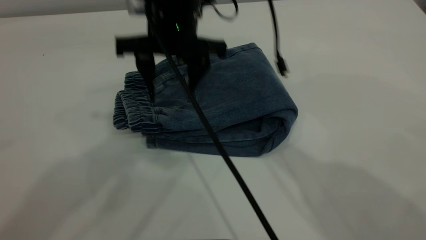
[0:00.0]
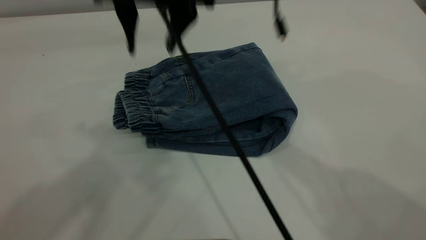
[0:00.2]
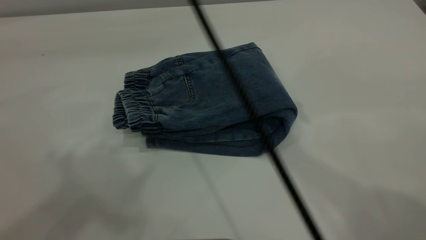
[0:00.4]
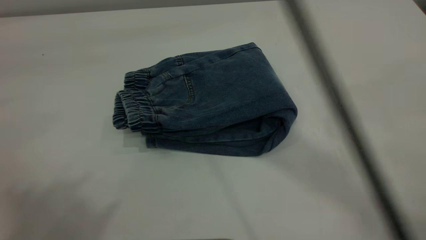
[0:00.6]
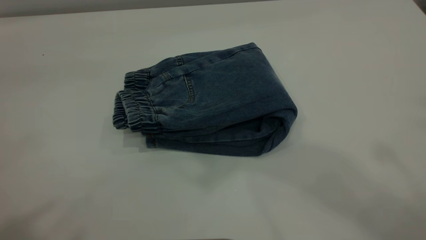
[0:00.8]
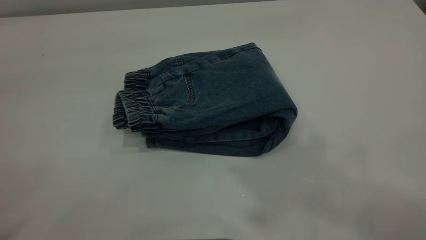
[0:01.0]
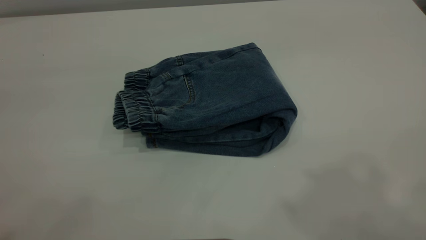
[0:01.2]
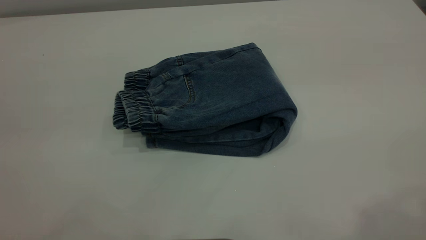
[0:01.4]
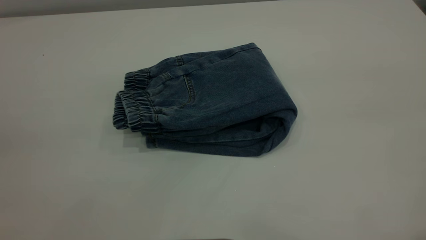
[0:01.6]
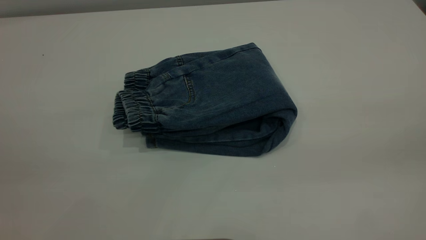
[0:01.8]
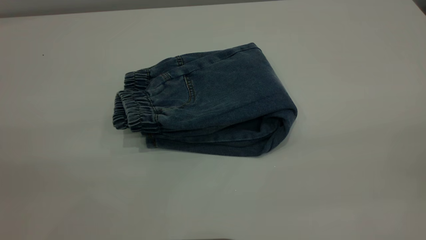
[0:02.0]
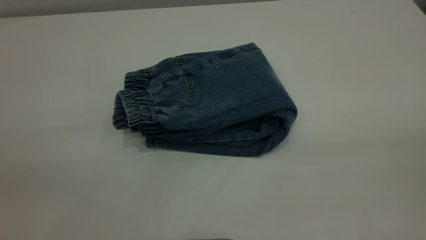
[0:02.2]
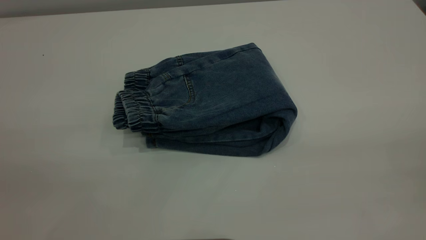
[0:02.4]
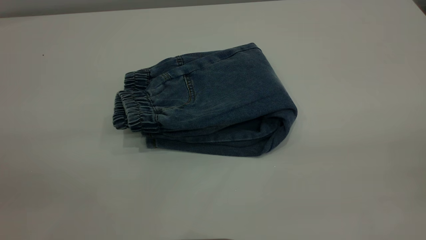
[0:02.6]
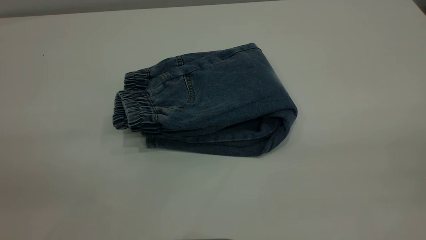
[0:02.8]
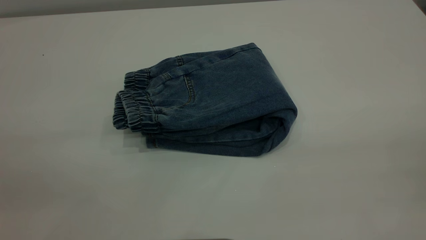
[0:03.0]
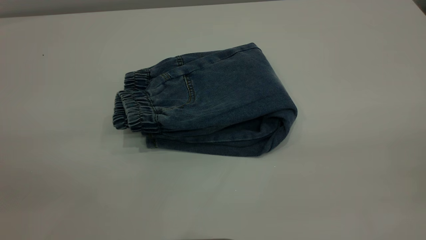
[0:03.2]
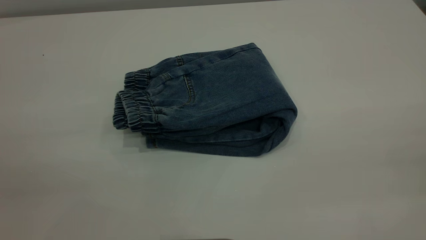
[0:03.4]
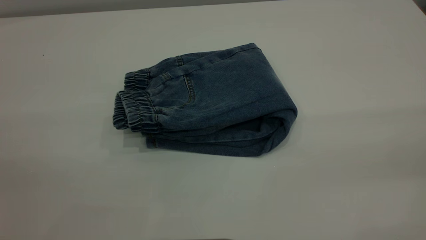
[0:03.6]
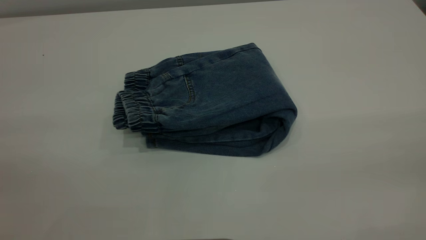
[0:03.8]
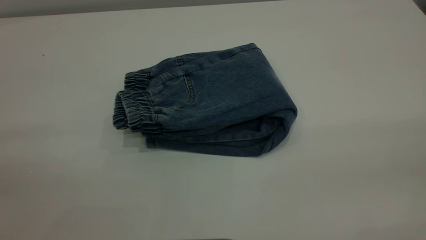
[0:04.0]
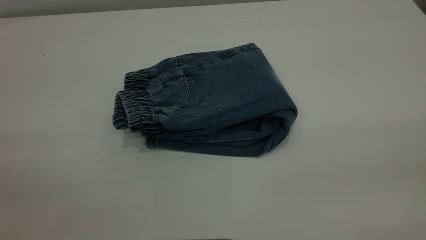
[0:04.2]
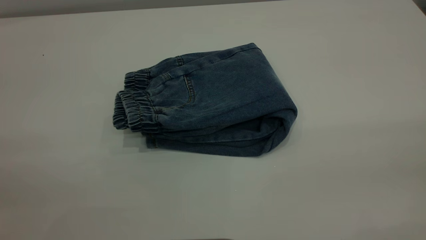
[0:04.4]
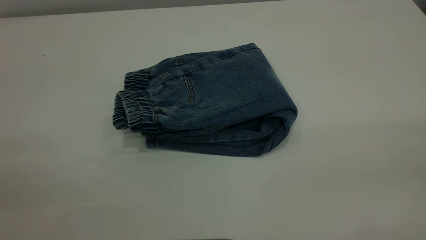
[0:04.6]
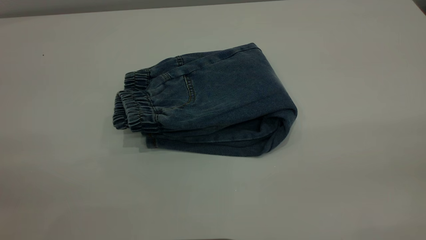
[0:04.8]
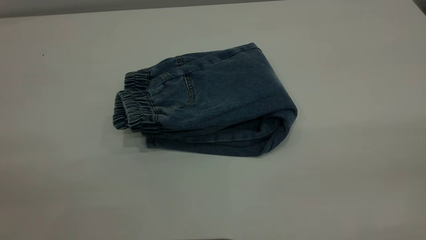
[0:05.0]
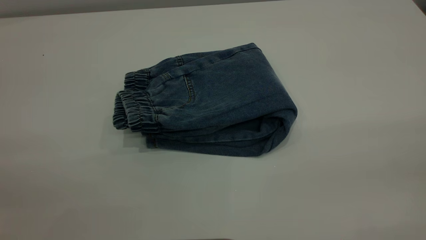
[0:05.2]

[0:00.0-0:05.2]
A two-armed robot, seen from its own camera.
0:00.0 to 0:01.8: The left gripper moves backward, to the left and downward, some 25 cm. Meanwhile the right gripper travels backward, to the right and upward by about 50 cm.
